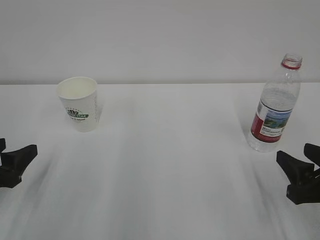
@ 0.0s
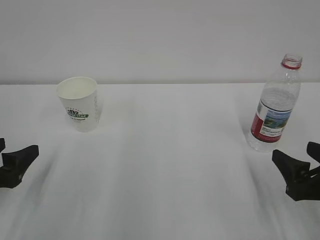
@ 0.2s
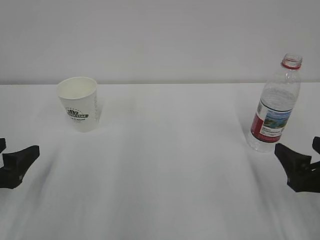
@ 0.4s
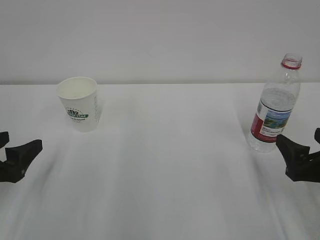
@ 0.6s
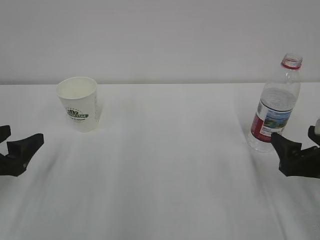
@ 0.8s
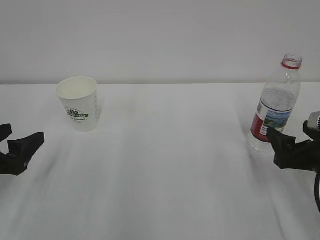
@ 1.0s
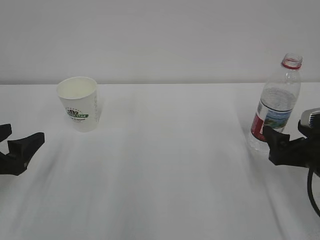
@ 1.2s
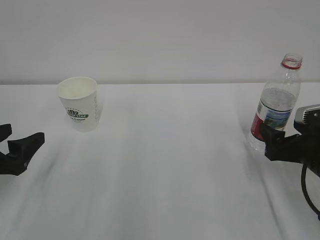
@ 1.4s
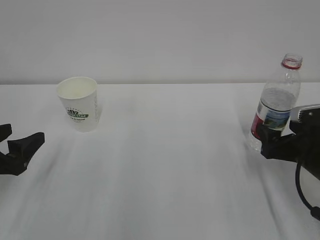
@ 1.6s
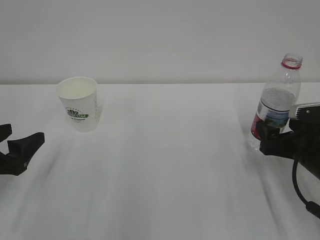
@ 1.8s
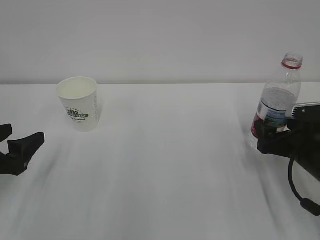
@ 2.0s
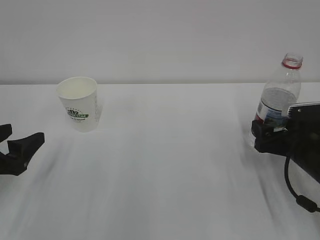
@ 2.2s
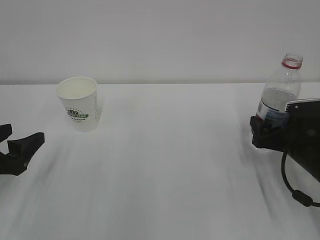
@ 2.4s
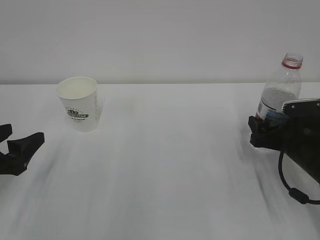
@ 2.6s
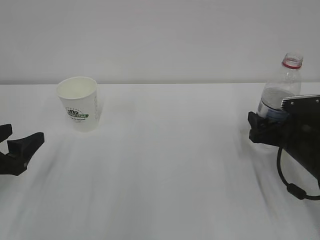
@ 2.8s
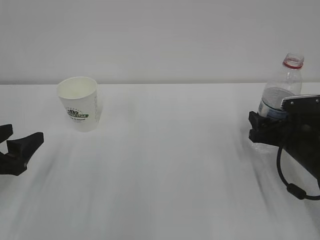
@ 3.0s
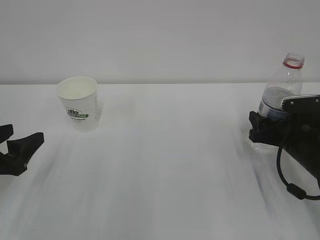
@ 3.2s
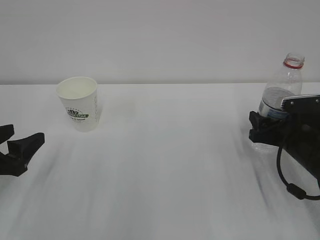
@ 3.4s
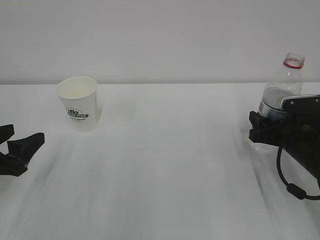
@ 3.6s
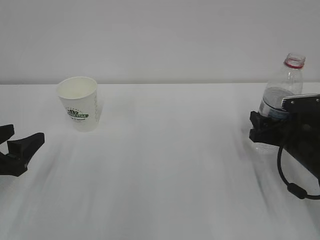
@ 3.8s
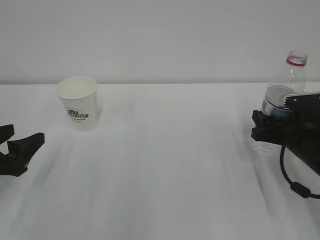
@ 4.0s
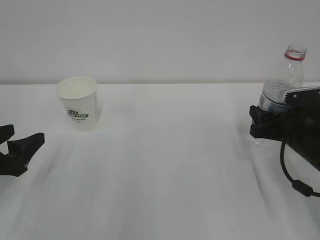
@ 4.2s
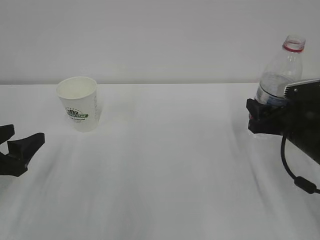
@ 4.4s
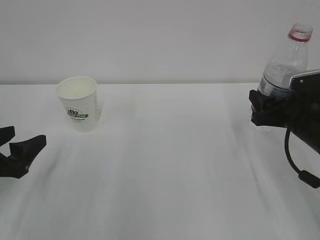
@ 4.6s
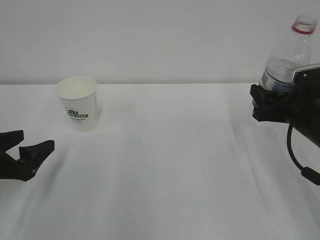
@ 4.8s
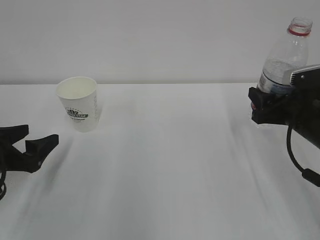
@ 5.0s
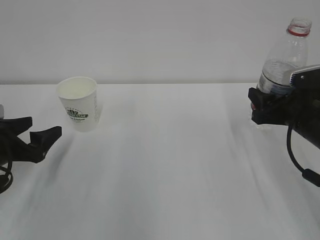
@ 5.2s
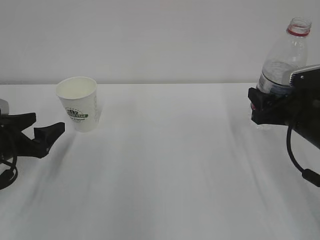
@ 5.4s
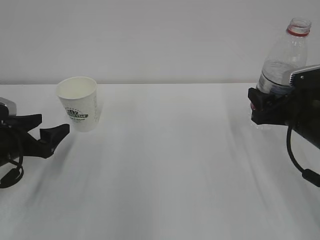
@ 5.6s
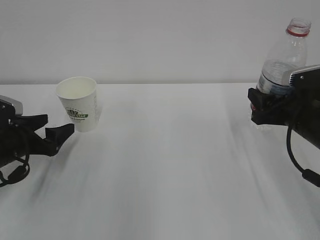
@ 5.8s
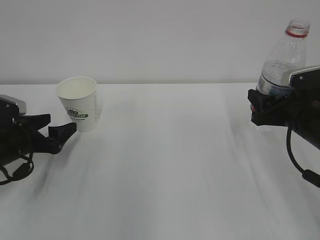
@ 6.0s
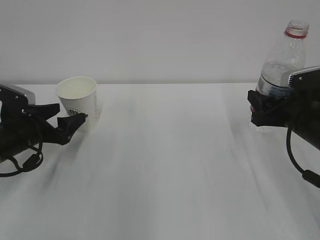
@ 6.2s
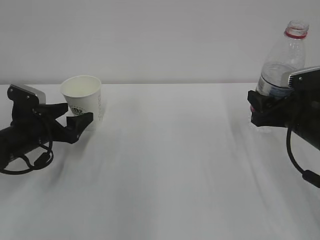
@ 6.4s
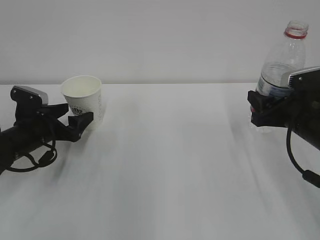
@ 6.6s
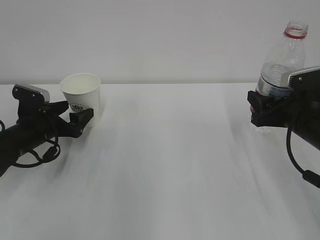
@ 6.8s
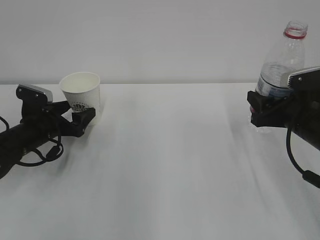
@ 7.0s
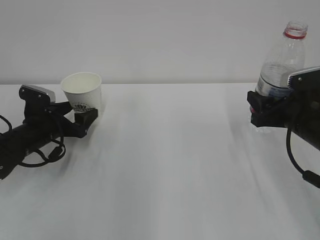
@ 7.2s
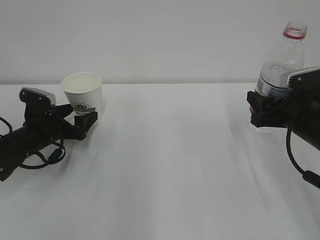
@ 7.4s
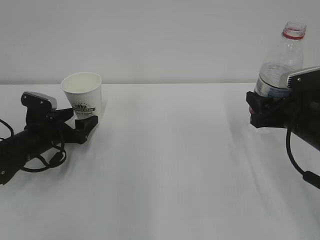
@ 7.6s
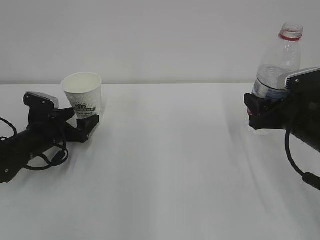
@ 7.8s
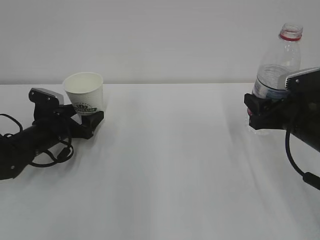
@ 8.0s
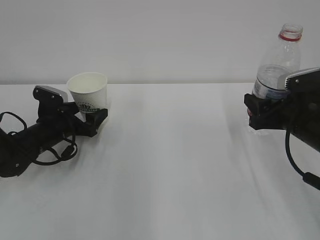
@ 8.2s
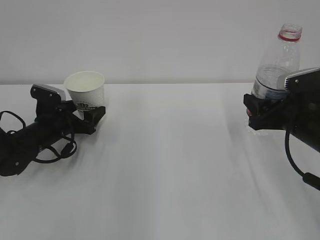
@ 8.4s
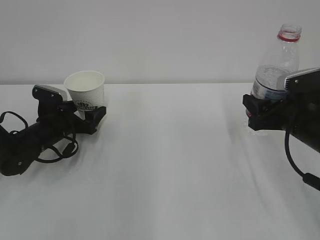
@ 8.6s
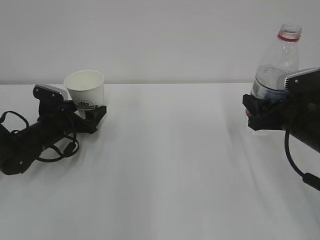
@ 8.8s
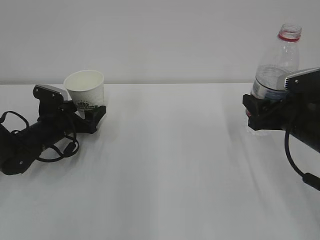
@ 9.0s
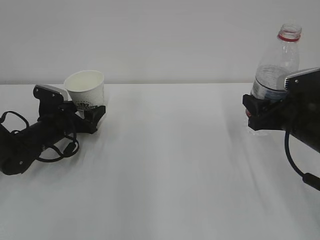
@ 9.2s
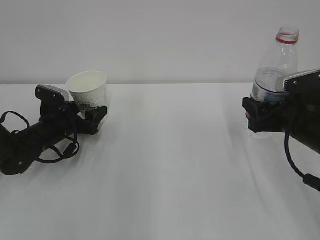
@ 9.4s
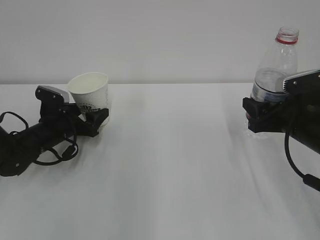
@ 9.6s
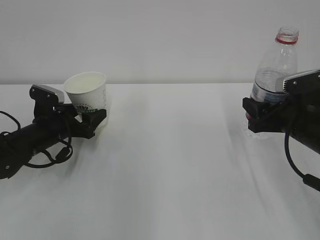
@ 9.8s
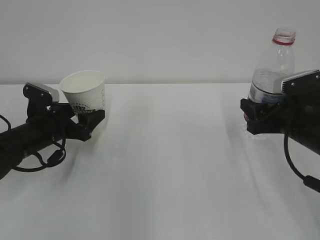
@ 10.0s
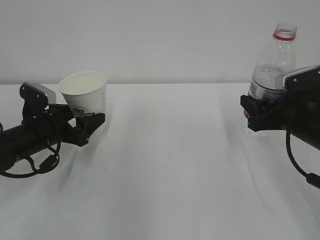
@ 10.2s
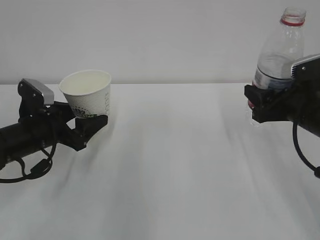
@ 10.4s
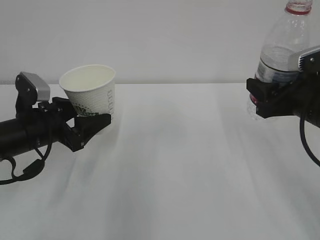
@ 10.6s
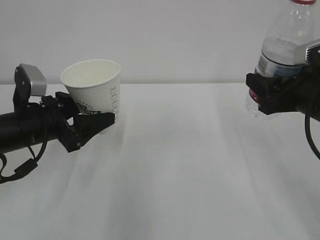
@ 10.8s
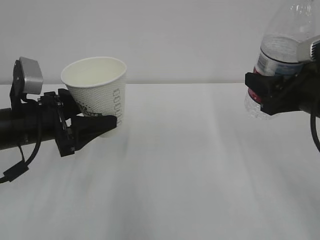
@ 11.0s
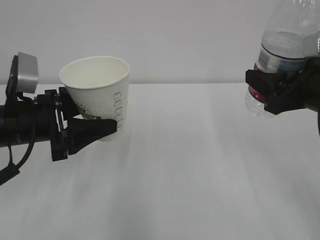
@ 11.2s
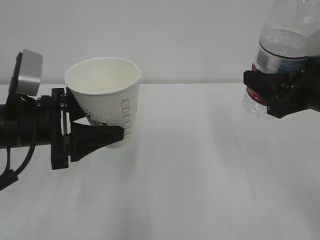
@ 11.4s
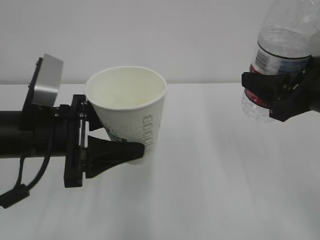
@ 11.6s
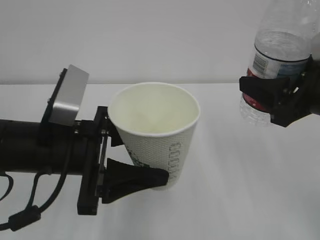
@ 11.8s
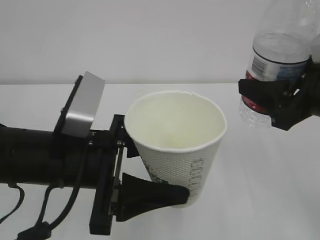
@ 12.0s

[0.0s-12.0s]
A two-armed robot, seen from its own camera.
0.0s to 1.6s: The right gripper is displaced forward by some 10 cm, and opens.
1.6s to 3.0s: The right gripper changes place by roughly 5 cm, and closes up.
3.0s to 4.4s: The right gripper closes.
4.4s to 6.0s: The left gripper travels forward by about 10 cm, and opens.
6.0s to 7.6s: The left gripper moves forward, approximately 5 cm.
7.6s to 9.0s: The grippers make only small movements.
9.0s to 10.4s: The left gripper heads backward and upward, covering some 10 cm, and closes.
10.4s to 12.0s: The right gripper shifts approximately 10 cm upward and backward. The left gripper heads to the right, backward and upward, covering approximately 20 cm.

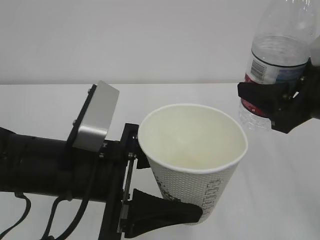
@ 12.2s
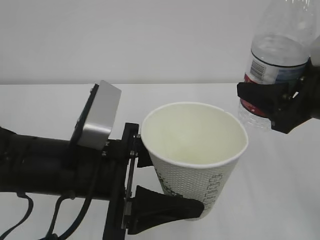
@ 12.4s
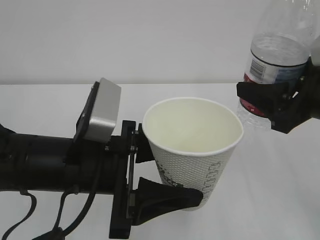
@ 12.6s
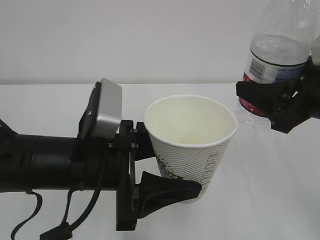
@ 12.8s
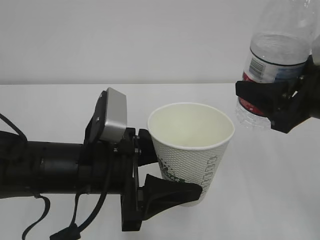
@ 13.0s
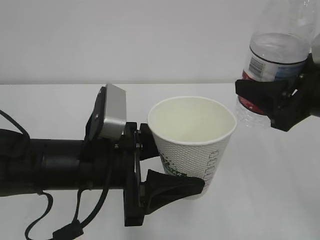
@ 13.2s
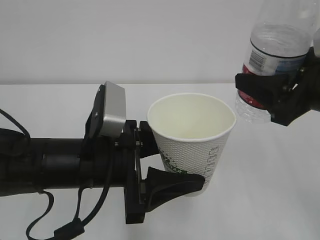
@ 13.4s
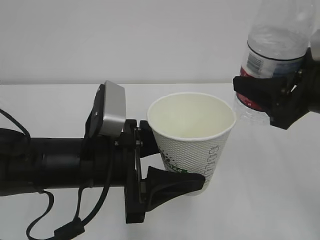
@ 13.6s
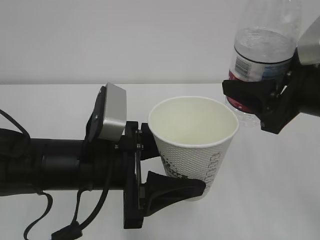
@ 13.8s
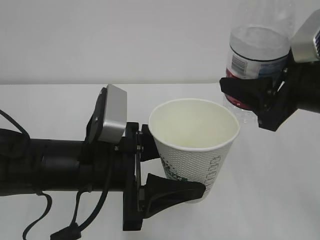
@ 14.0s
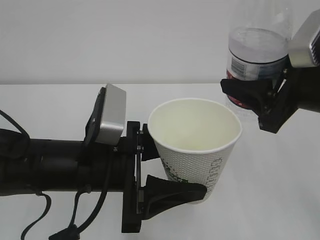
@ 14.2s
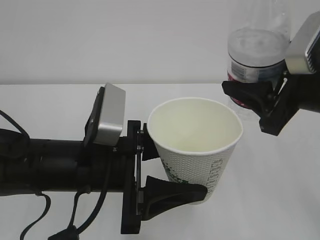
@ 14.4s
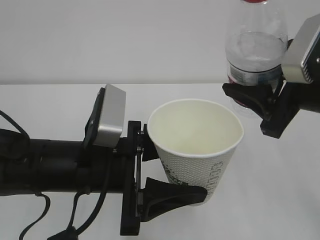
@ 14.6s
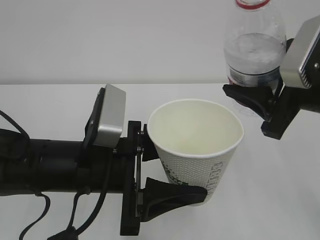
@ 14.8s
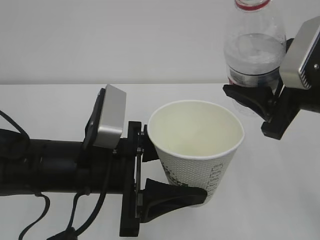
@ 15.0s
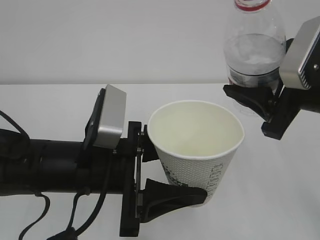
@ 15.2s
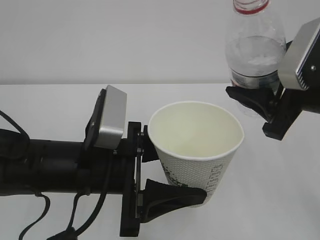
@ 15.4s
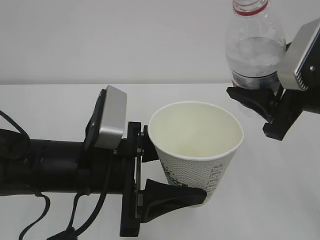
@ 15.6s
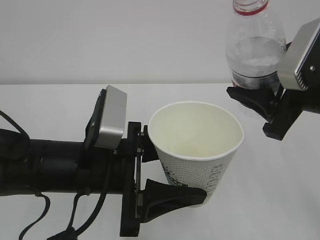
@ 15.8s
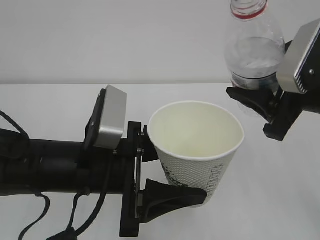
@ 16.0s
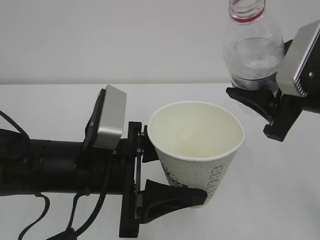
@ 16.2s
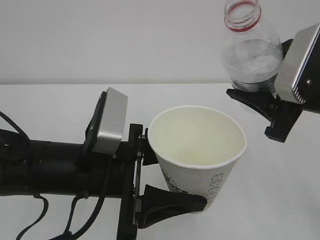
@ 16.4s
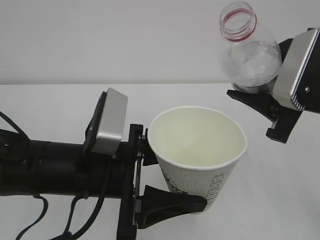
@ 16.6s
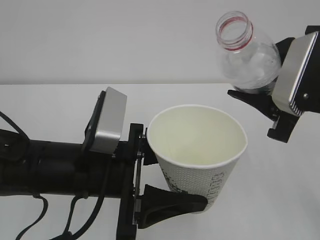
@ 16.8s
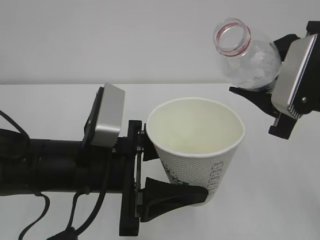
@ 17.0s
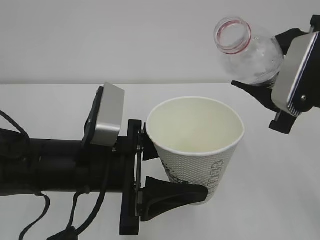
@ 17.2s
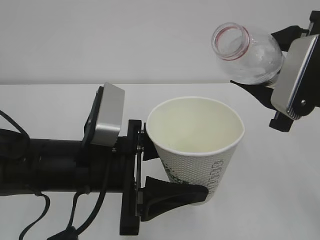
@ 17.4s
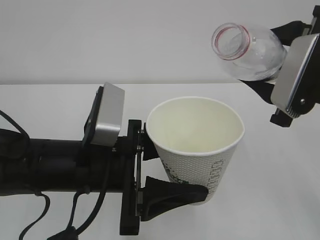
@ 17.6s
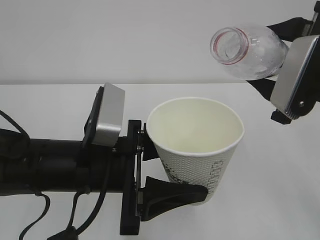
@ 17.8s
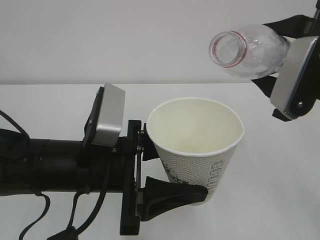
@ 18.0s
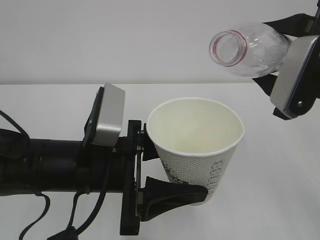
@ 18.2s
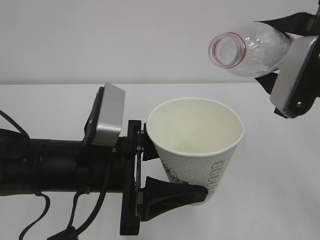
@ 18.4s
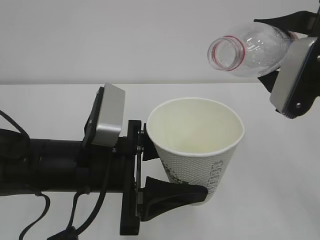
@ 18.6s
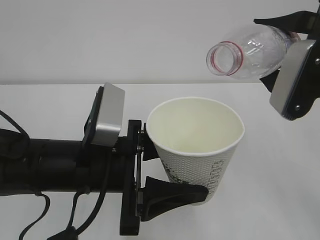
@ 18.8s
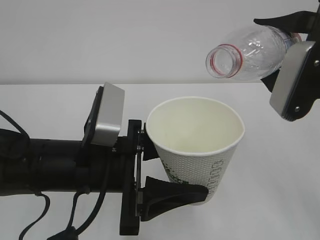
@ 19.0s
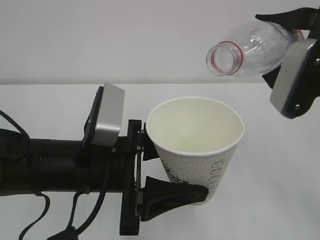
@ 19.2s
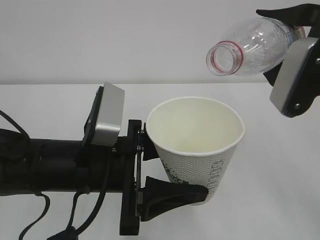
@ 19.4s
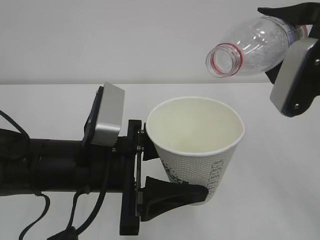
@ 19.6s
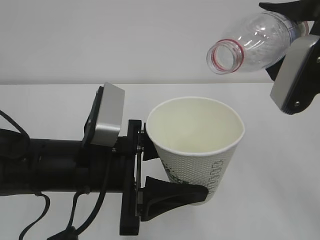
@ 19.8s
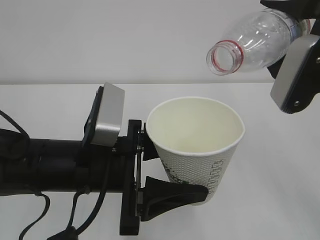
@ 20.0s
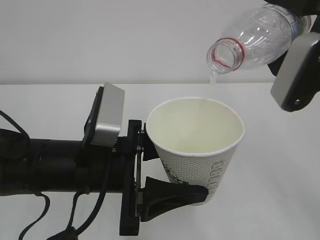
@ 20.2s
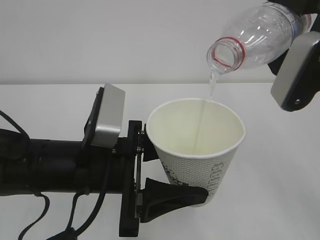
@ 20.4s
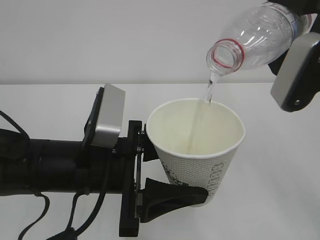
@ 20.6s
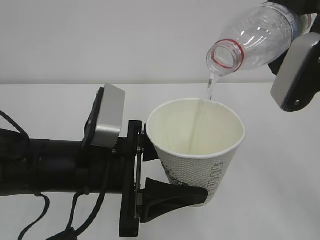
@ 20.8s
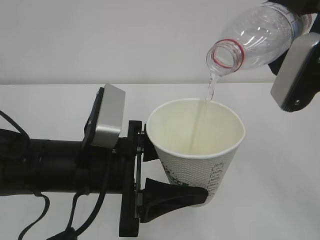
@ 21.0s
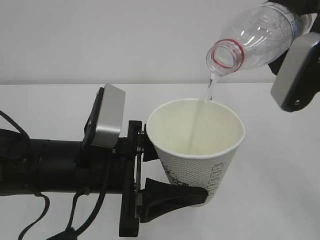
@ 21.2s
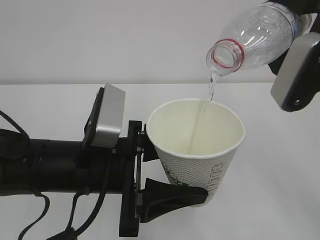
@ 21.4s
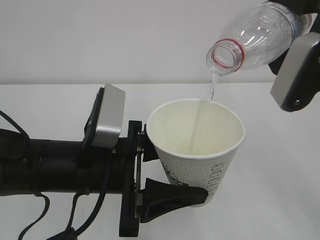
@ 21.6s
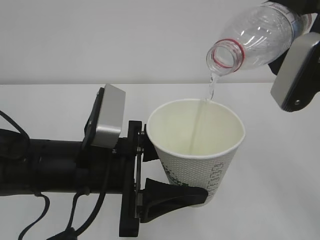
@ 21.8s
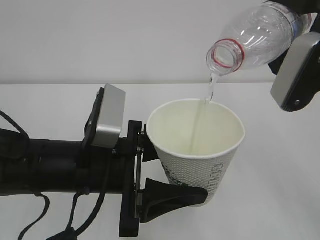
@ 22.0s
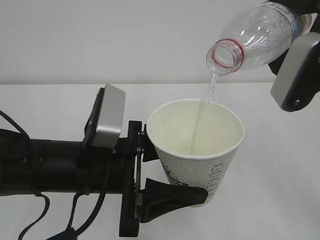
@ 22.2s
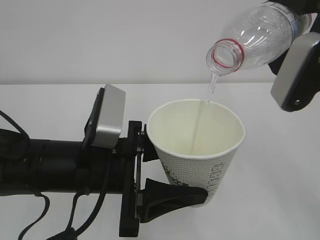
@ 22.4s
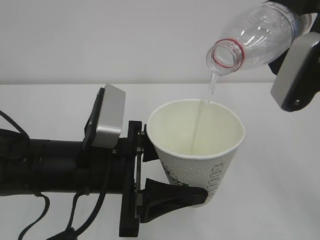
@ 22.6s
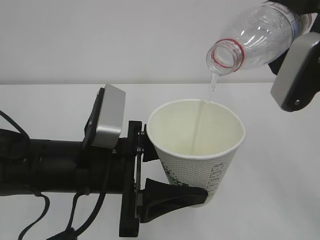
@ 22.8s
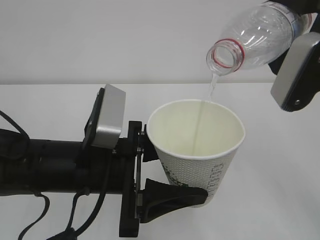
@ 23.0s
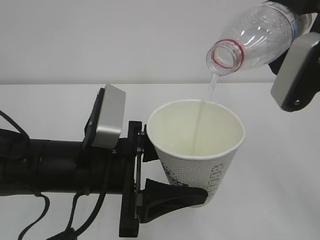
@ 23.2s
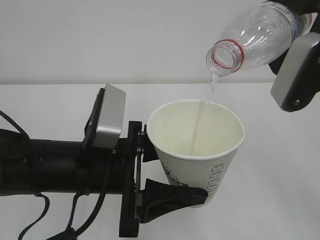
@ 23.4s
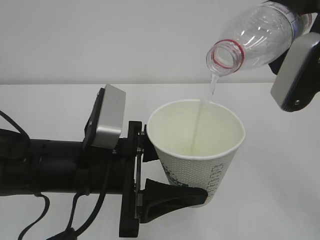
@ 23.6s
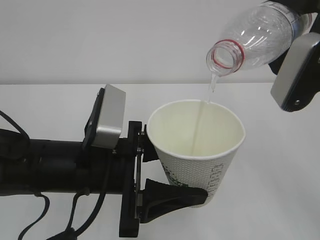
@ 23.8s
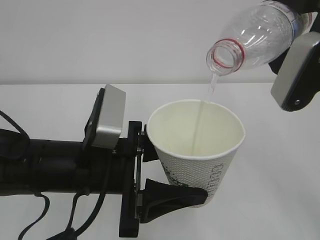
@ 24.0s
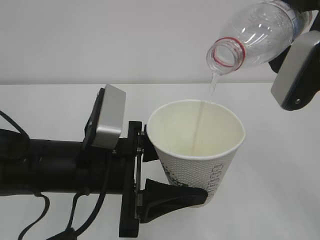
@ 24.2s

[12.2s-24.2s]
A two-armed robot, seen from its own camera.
13.8s to 15.2s: The grippers make only small movements.
15.2s to 16.6s: The grippers make only small movements.
18.2s to 19.8s: There are only small adjustments of the grippers.
19.8s to 22.6s: Neither gripper changes place.
22.6s to 24.2s: The two grippers keep their place.
